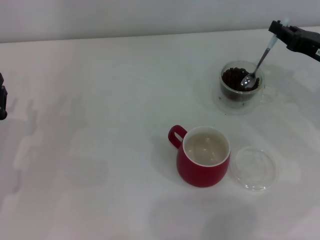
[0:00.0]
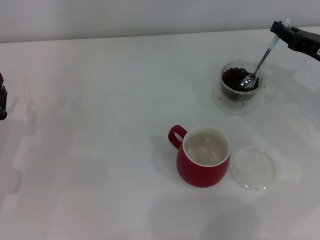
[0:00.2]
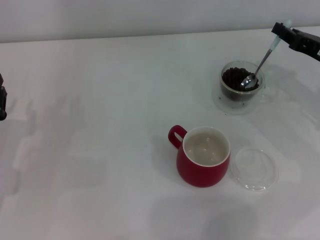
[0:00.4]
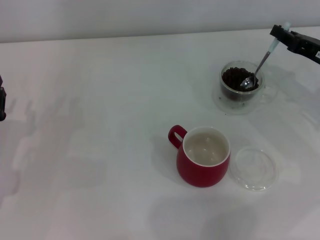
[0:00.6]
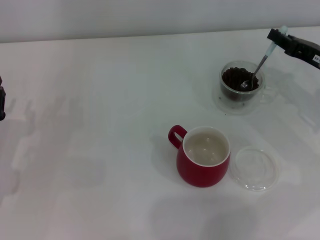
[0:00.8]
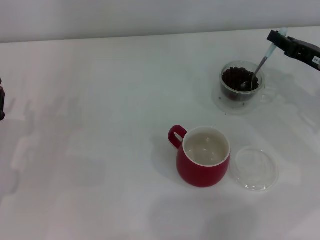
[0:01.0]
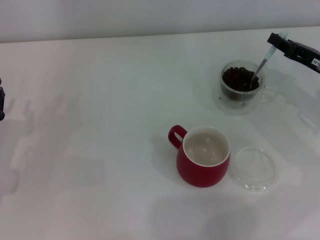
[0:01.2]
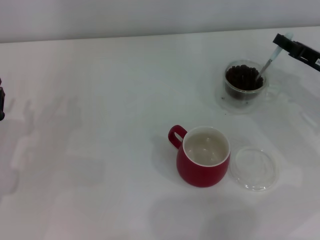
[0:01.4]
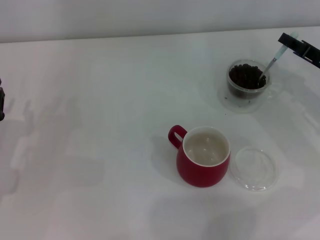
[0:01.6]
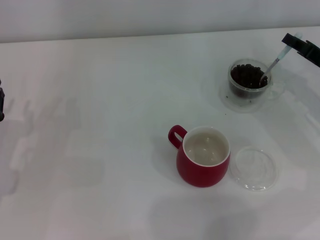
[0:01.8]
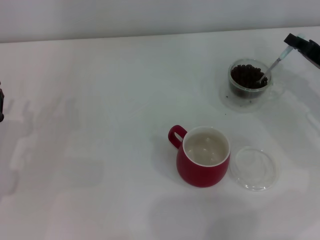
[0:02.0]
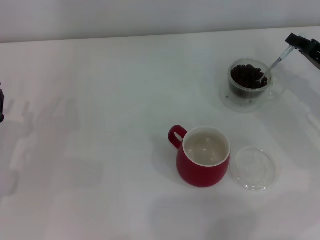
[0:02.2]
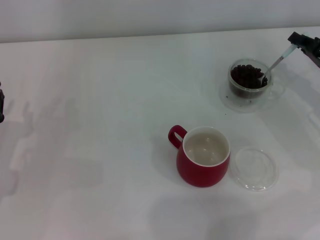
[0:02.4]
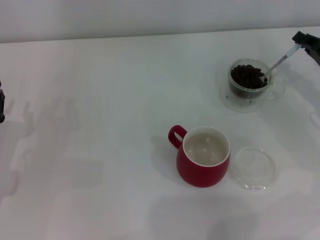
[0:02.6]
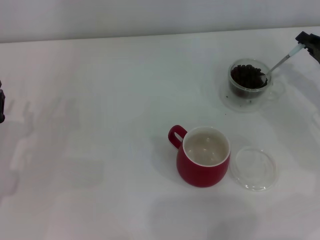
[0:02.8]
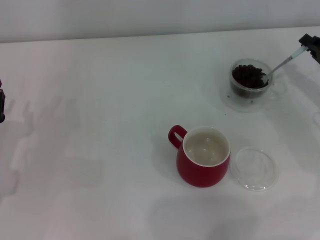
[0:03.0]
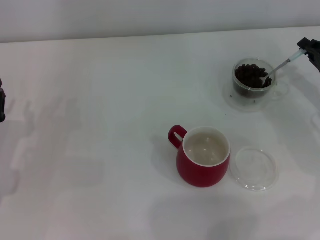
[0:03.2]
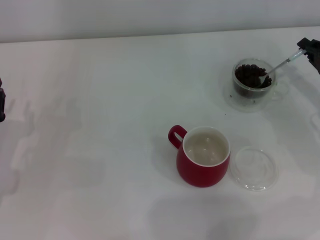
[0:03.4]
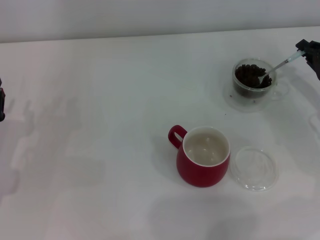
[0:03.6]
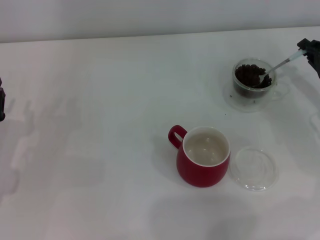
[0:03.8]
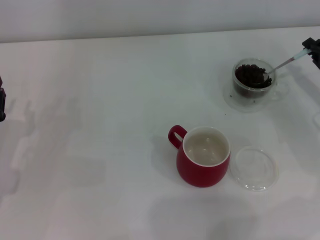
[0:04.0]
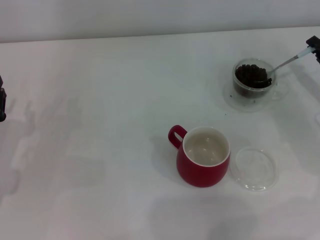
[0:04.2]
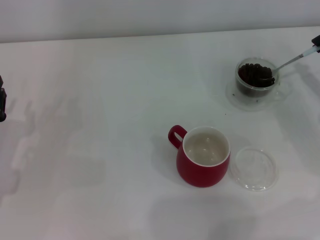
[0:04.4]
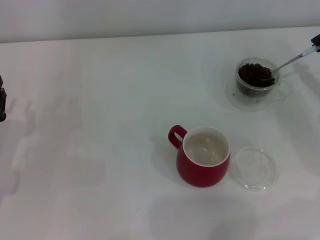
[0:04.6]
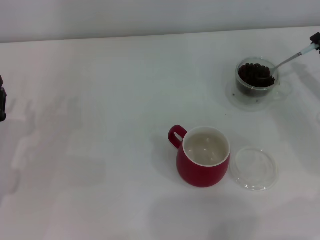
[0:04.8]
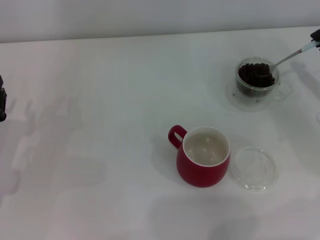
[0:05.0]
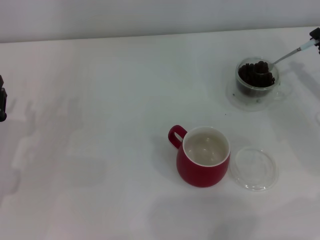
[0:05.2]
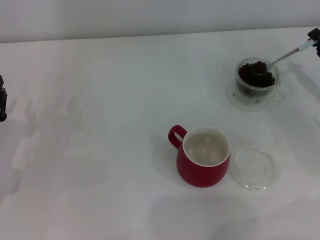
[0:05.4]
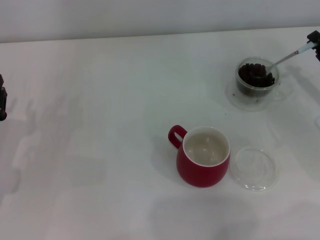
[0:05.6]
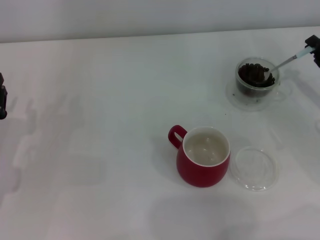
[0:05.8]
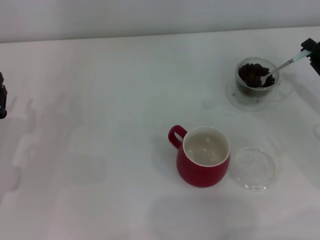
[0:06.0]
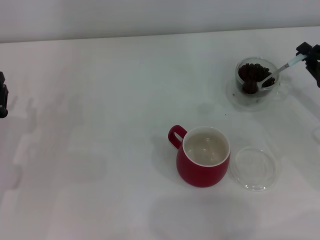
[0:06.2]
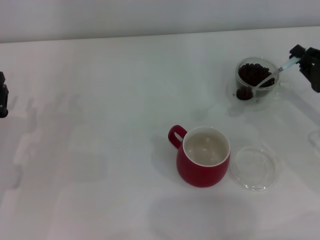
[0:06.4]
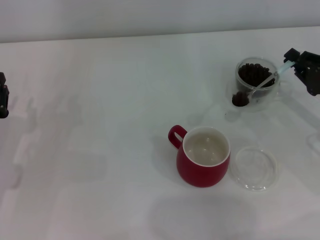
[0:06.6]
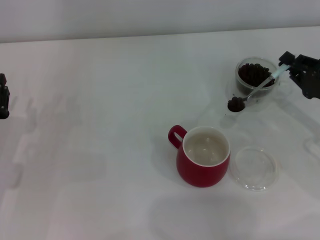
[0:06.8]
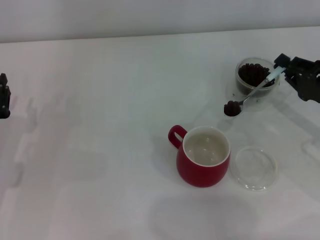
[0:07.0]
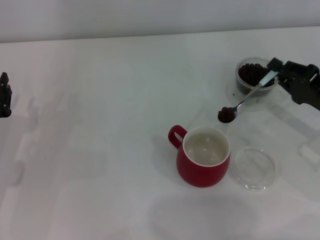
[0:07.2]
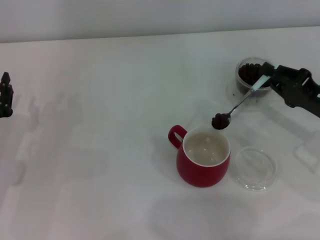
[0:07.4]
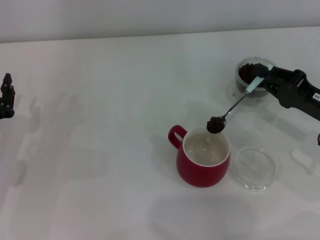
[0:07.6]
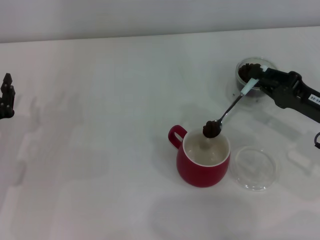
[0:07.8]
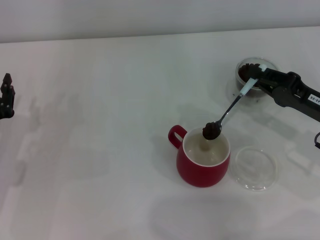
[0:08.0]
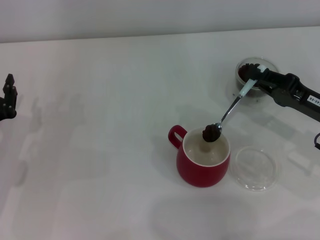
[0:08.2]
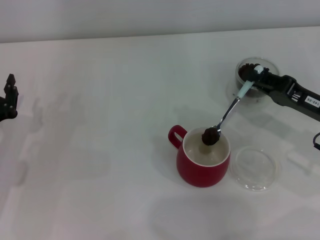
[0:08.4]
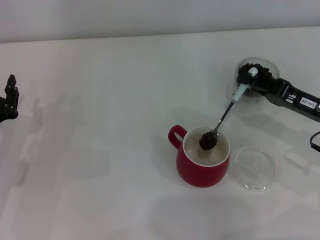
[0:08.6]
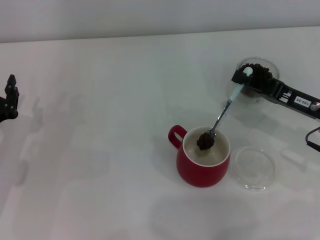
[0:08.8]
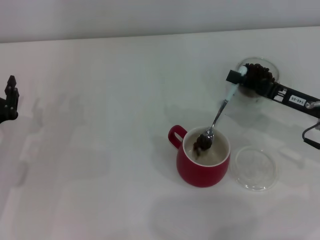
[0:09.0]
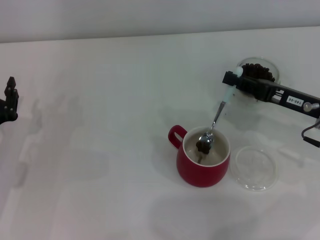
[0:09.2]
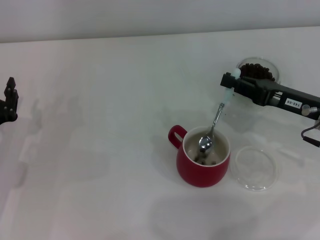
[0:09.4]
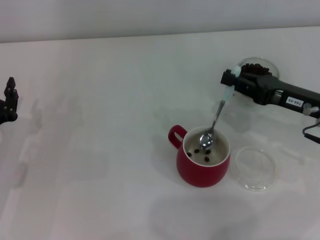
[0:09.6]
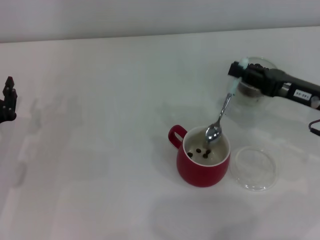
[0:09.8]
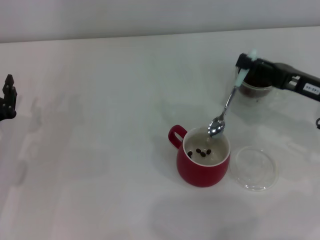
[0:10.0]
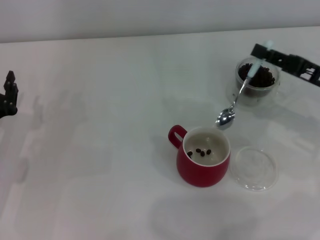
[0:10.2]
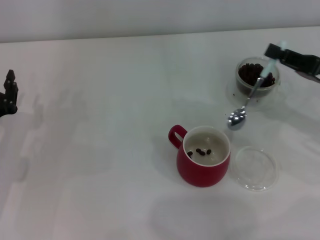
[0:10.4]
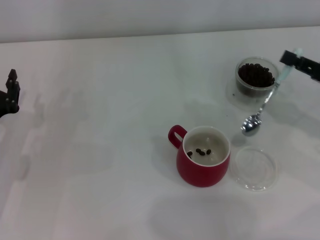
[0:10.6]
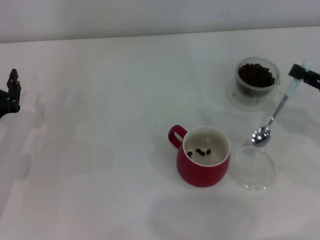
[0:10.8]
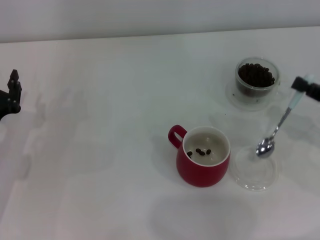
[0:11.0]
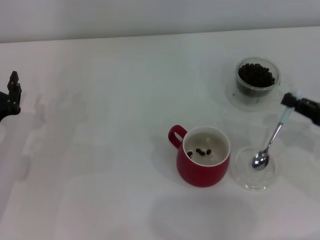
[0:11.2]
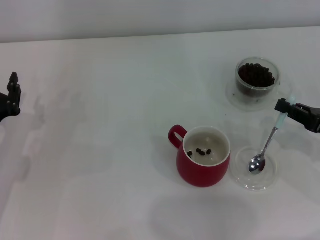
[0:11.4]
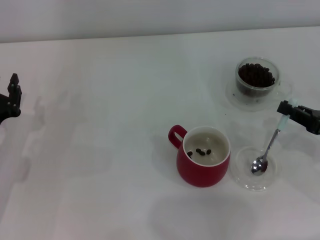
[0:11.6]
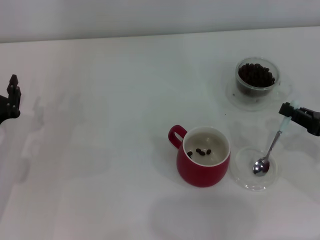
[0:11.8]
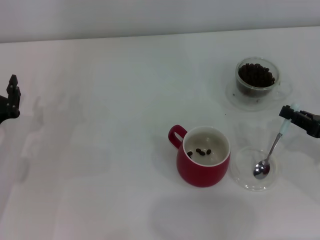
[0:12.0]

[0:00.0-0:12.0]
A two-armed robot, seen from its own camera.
Task of the whole recording: Use a blue spoon to take out the coffee beans from the glass and pour them into the red cup.
Step, 0:00.0 to 0:09.8: Scoop a spoonful of beans into the cup with the right gripper.
0:00.0 to 0:01.6: The grippers make only small movements.
0:03.0 to 0:06.0: There are only small adjustments of the grippers.
0:06.0 to 0:07.6: The right gripper ends up roughly 5 cm from where it was.
0:09.0 to 0:10.4: The right gripper ends up about 5 cm from where it was.
0:10.4 to 0:12.0: The right gripper goes some 10 cm downward and backward.

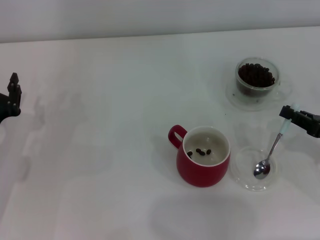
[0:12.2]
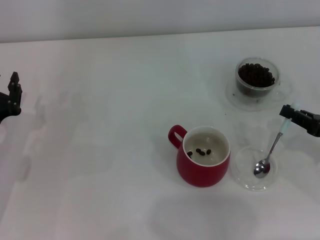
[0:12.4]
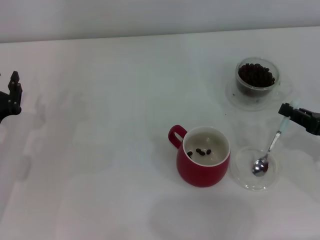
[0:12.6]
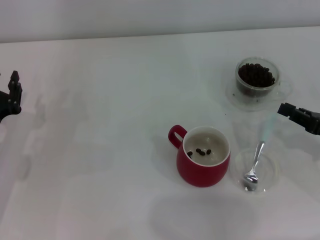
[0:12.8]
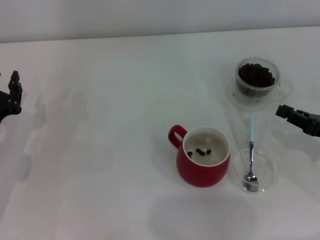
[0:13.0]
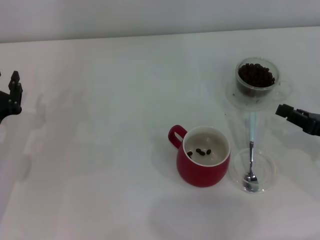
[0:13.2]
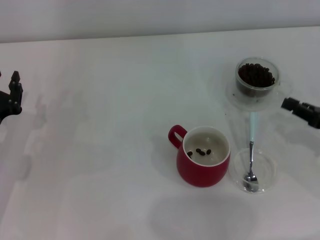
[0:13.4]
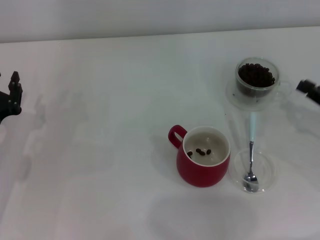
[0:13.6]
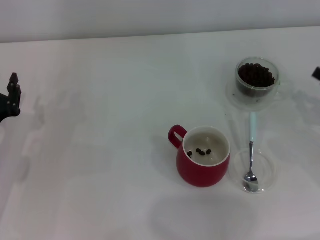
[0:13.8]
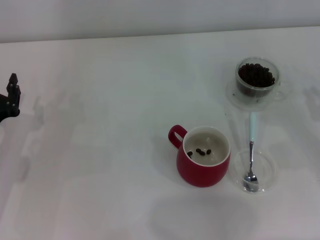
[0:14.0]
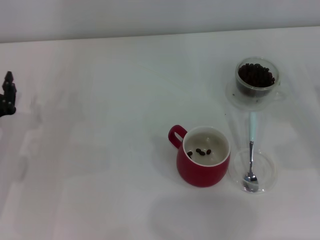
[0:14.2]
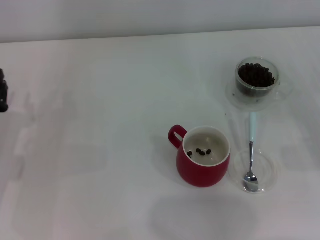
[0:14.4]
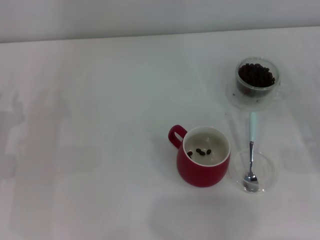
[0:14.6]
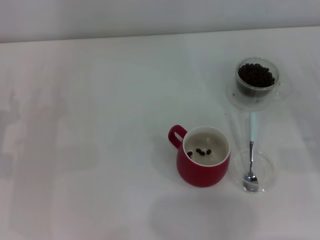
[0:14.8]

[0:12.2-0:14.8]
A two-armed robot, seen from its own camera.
Task of the whole recording: Use a blue spoon to take out the coffee beans from the glass and pour them into the red cup.
0:12.2 to 0:13.4: Neither gripper changes place.

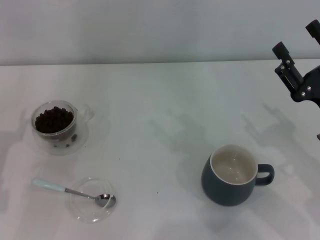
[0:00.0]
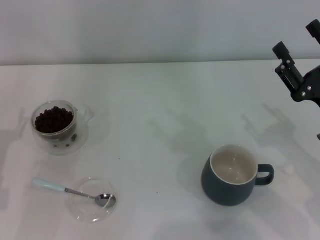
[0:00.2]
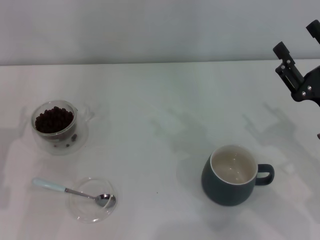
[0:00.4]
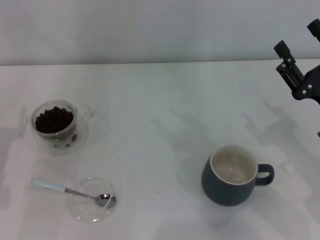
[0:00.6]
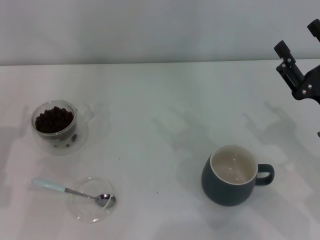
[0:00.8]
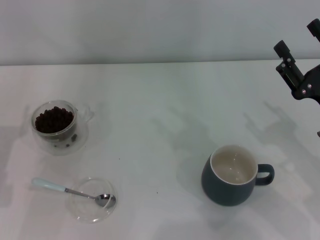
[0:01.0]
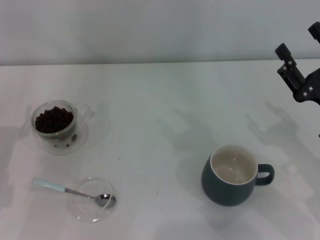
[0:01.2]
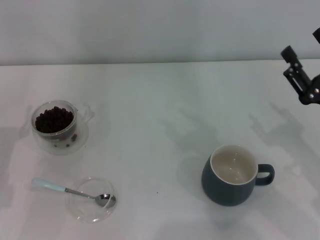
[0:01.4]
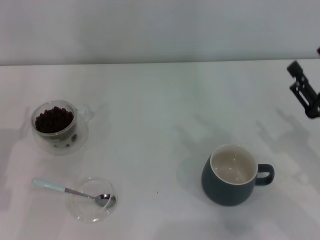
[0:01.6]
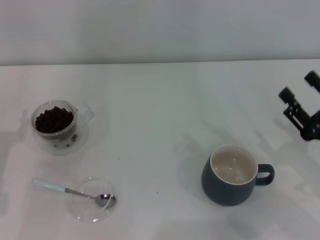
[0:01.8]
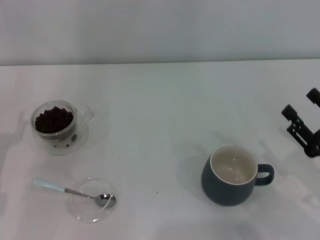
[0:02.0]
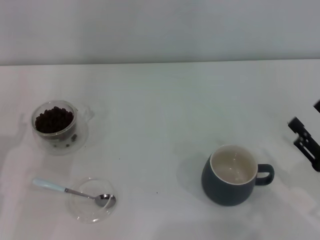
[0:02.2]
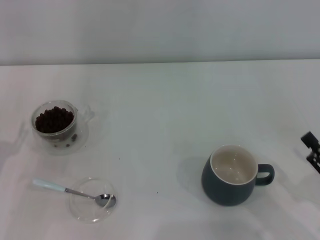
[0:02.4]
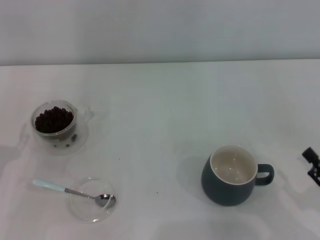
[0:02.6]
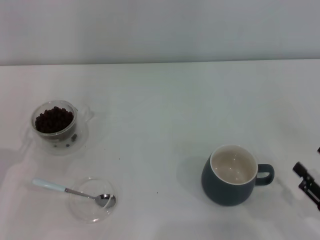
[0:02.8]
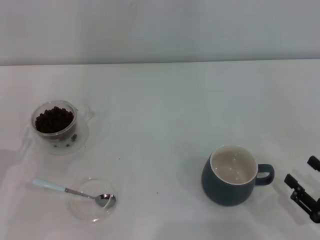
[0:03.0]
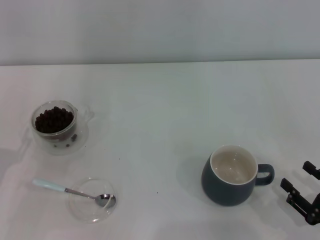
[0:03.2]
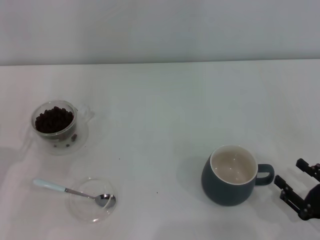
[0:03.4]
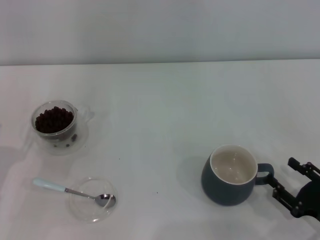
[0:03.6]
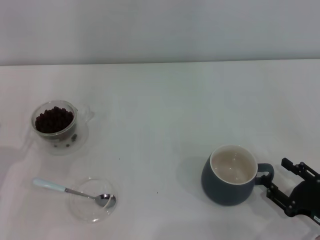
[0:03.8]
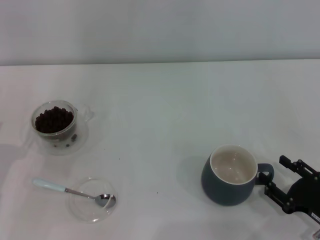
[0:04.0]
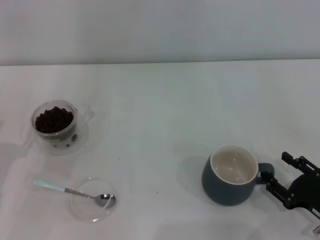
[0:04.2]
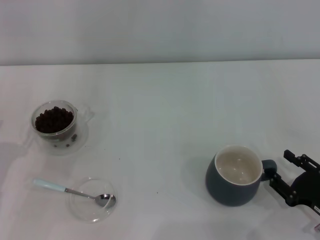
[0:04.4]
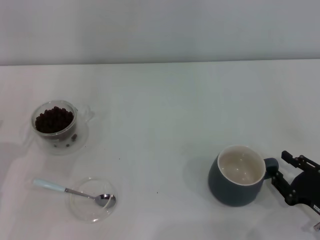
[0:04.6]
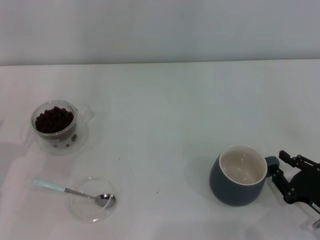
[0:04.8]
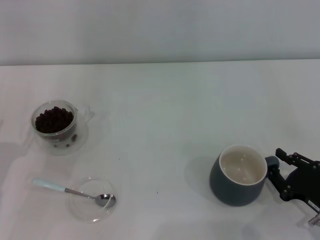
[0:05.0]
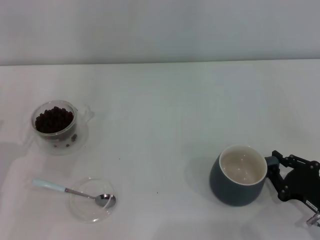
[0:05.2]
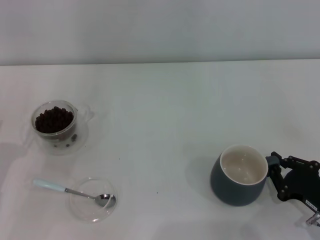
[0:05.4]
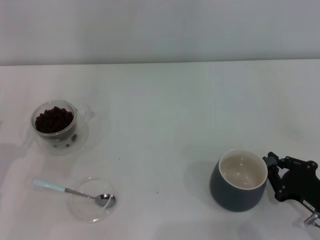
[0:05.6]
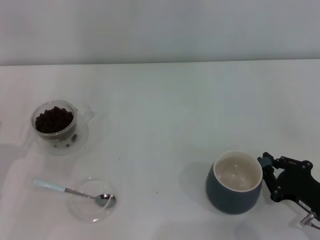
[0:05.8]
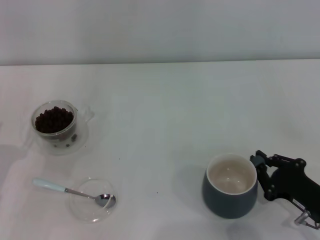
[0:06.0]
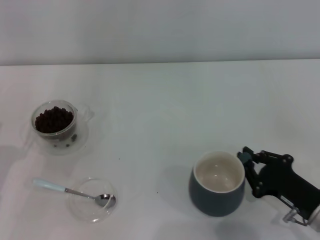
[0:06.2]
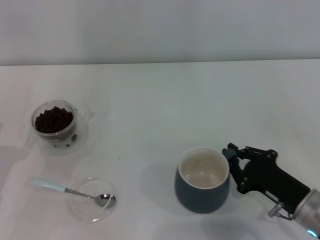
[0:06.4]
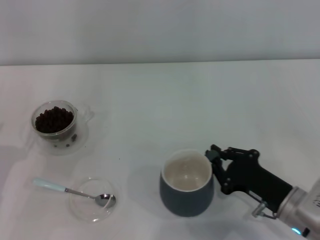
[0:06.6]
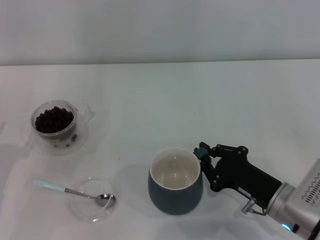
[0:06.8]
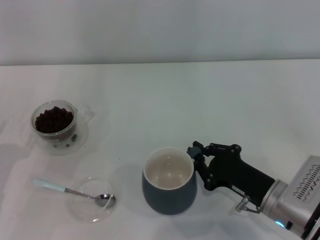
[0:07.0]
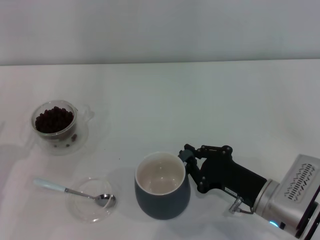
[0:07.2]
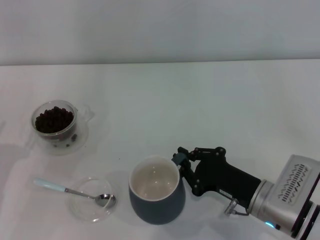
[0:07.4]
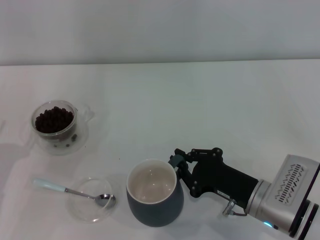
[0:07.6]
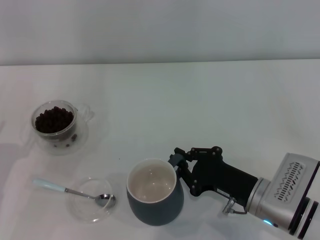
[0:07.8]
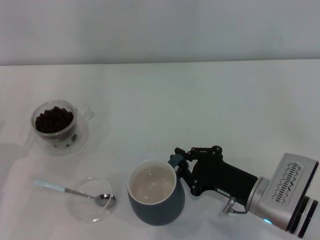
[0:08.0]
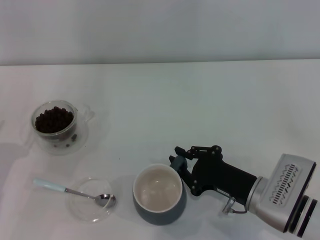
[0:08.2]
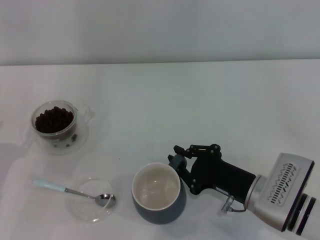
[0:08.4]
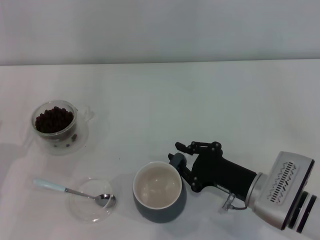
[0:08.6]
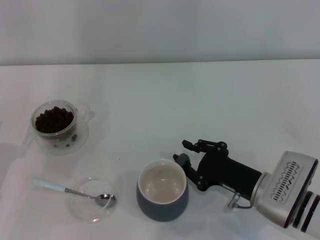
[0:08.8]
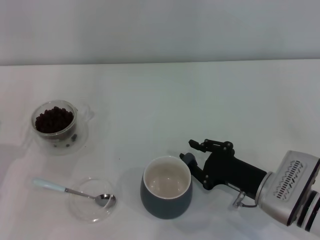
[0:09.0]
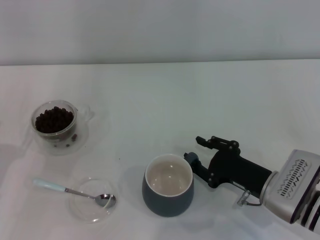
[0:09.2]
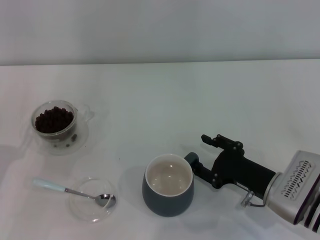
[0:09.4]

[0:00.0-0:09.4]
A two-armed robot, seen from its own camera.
Task of the whole recording: Use a blue spoon to take out the coffee beans from the glass and pour them into the gray cup.
0:00.0 to 0:01.6: The grippers move only a little.
0:01.6 to 0:03.2: The right gripper goes approximately 10 cm backward and downward.
0:03.2 to 0:04.8: The right gripper closes.
0:04.8 to 0:06.2: The right gripper closes.
0:06.2 to 0:07.8: The right gripper goes about 10 cm to the left.
0:07.8 to 0:09.4: The right gripper opens its fingers.
